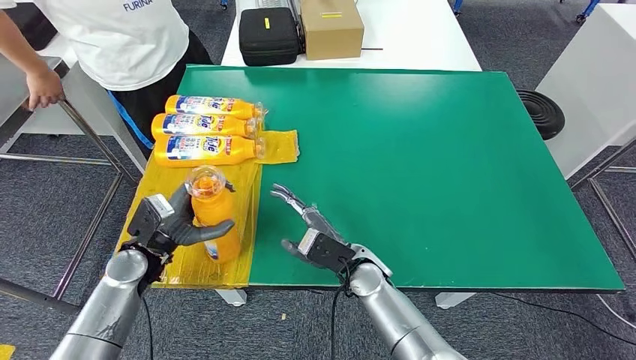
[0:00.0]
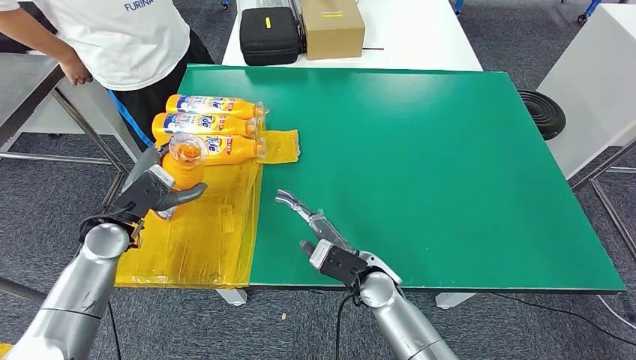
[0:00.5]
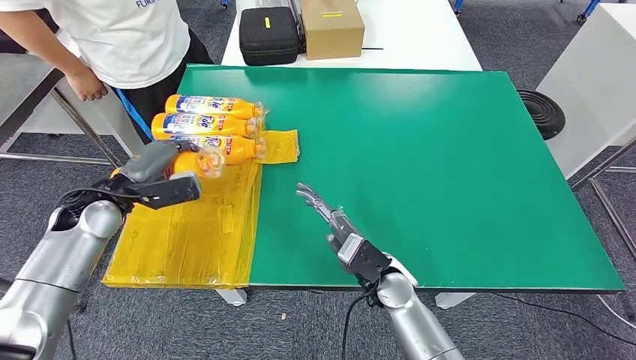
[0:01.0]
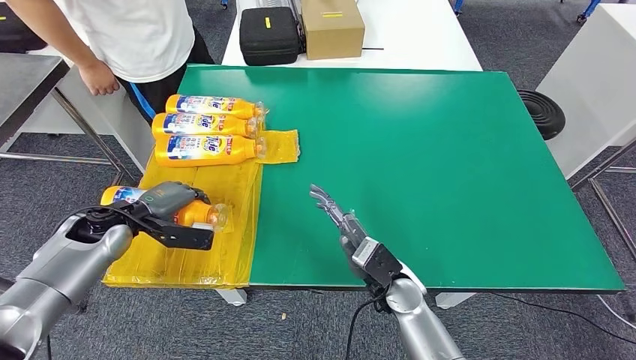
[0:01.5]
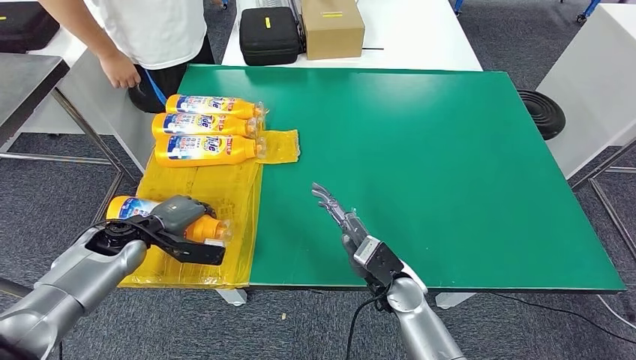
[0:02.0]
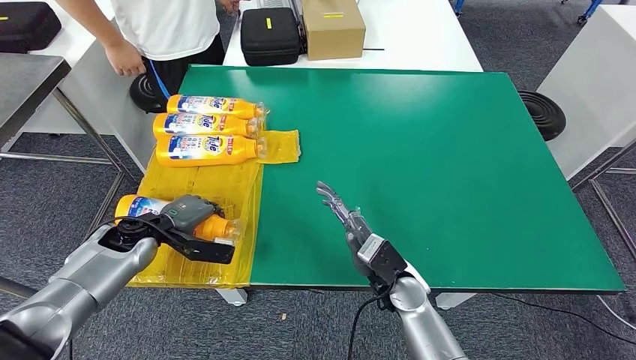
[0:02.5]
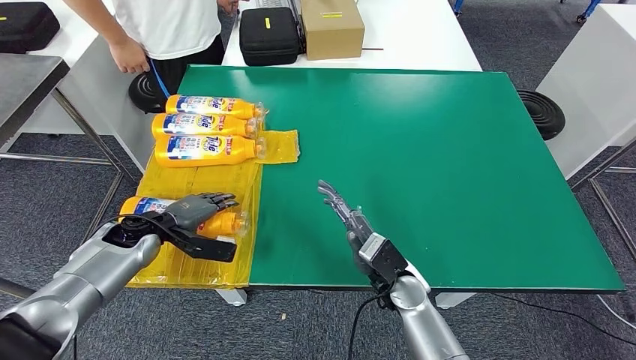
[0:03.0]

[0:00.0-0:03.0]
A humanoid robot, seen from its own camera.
Step, 0:00.0 to 0:03.0: Flip the fast-moving consumer goods bottle to the front side.
0:01.5 to 0:03.0: The left hand ends up roughly 5 cm from where it was.
